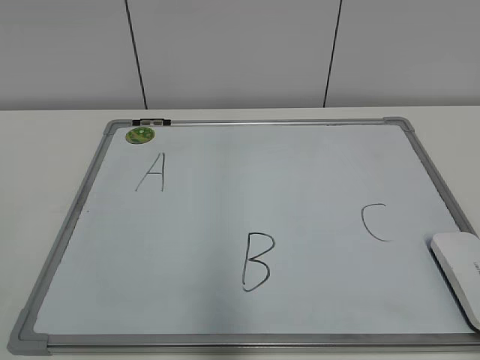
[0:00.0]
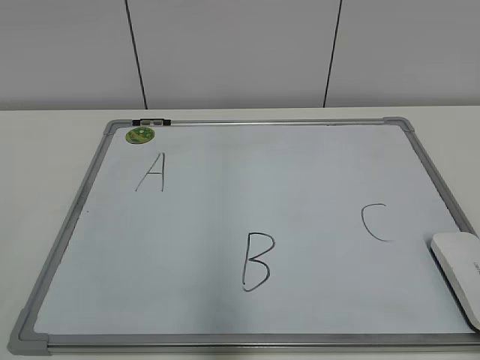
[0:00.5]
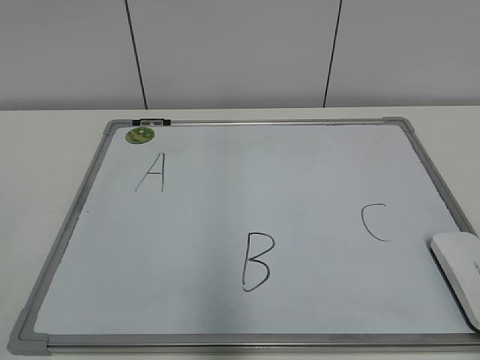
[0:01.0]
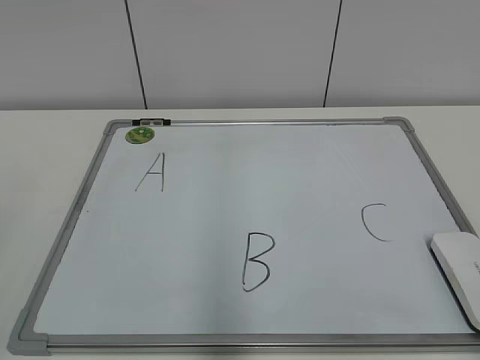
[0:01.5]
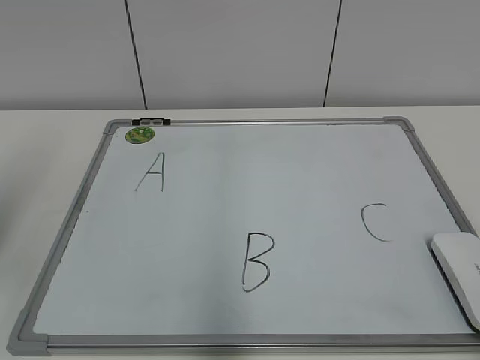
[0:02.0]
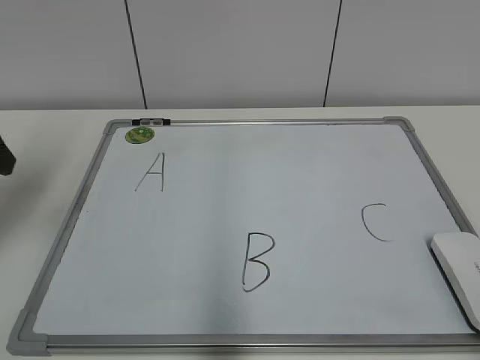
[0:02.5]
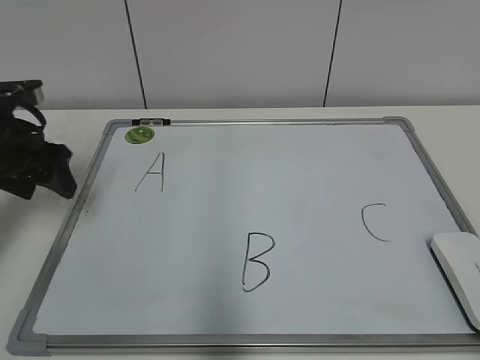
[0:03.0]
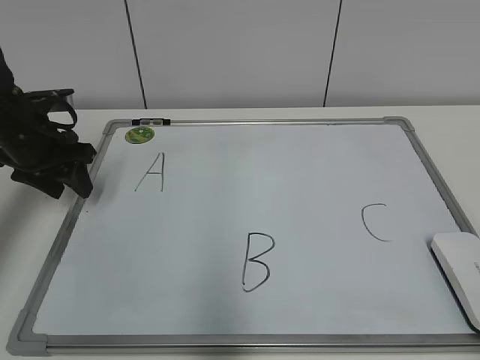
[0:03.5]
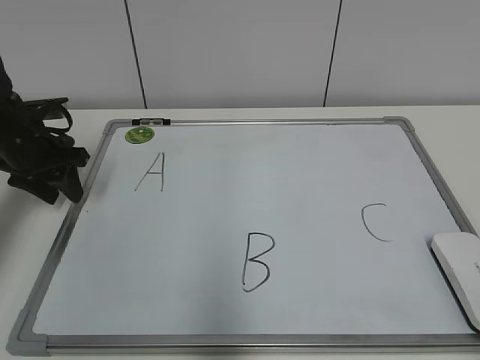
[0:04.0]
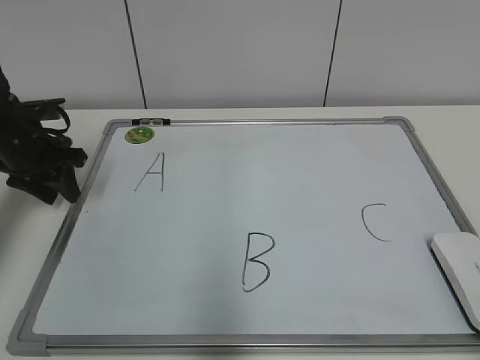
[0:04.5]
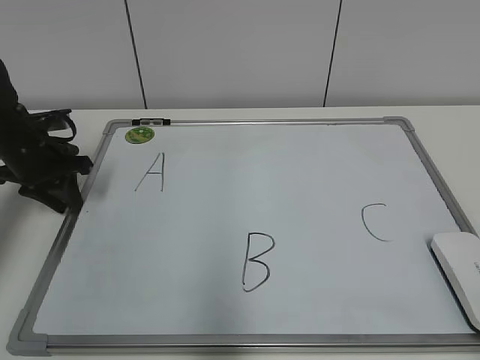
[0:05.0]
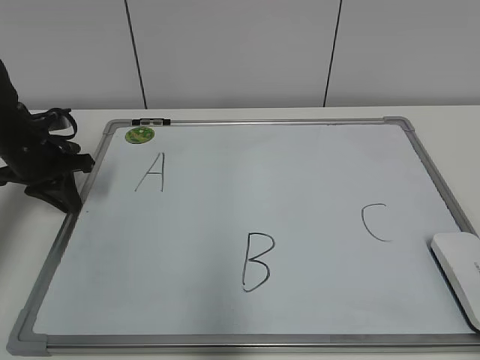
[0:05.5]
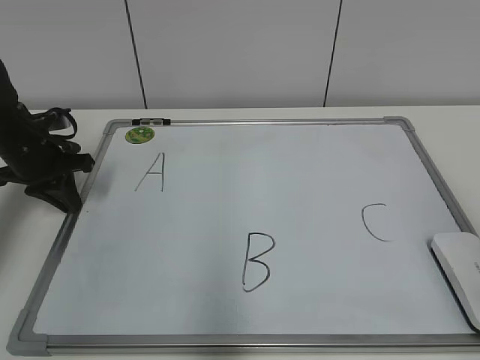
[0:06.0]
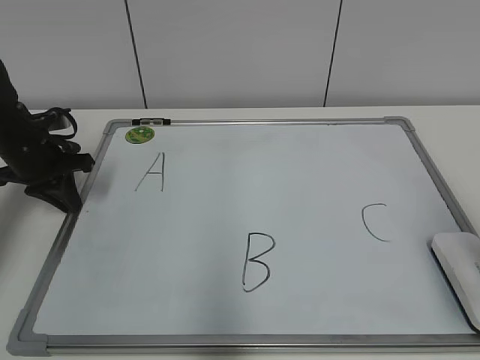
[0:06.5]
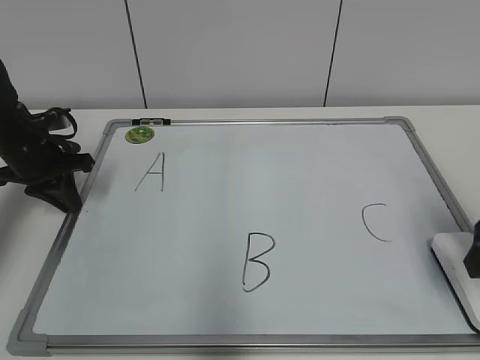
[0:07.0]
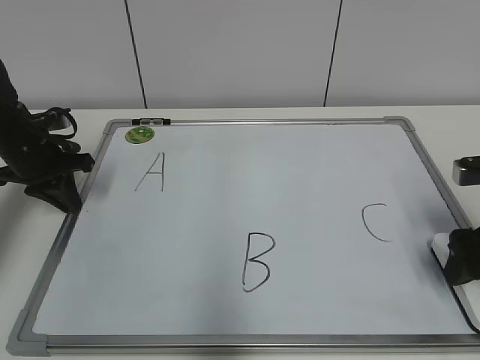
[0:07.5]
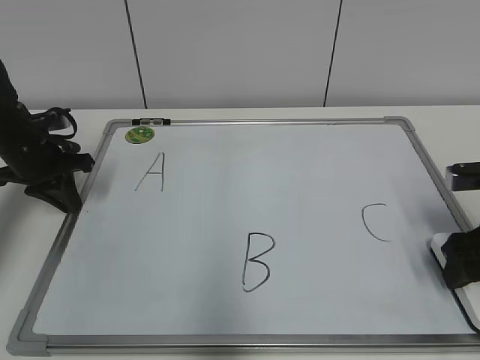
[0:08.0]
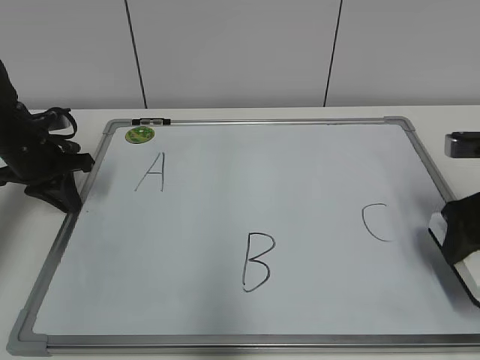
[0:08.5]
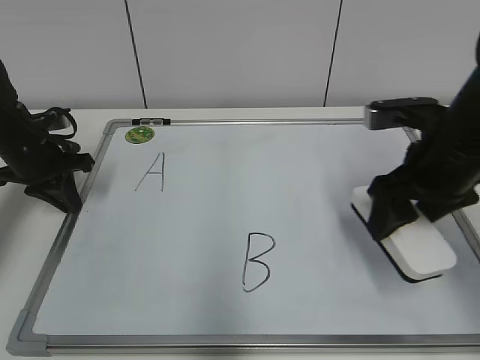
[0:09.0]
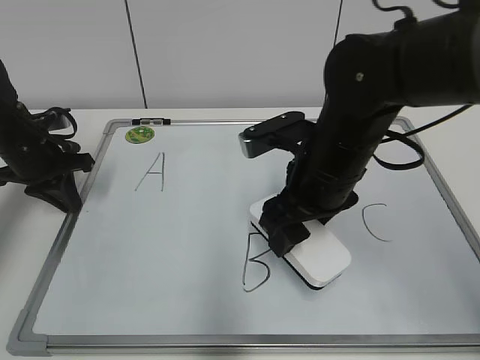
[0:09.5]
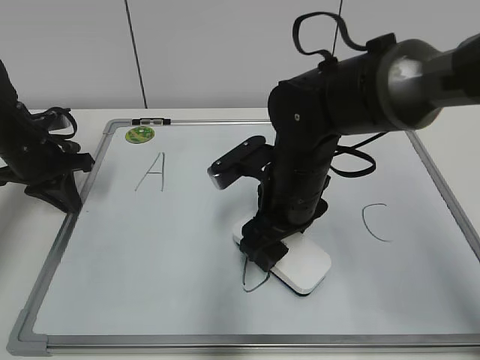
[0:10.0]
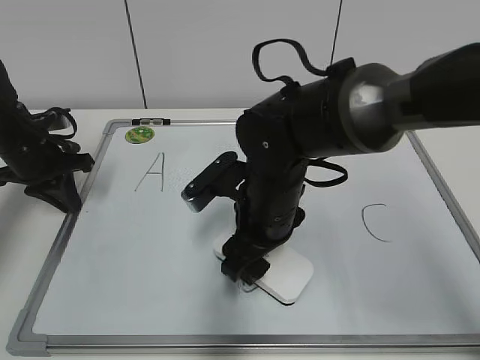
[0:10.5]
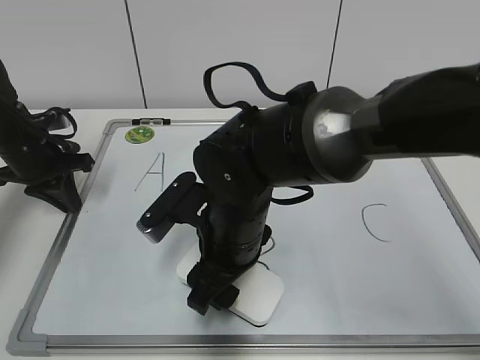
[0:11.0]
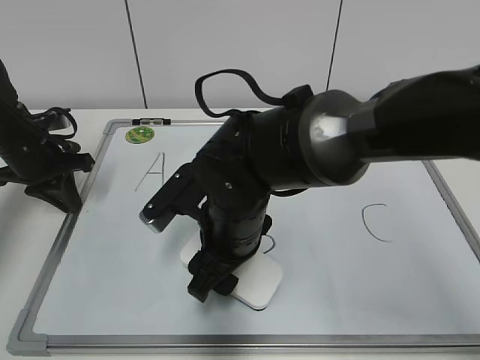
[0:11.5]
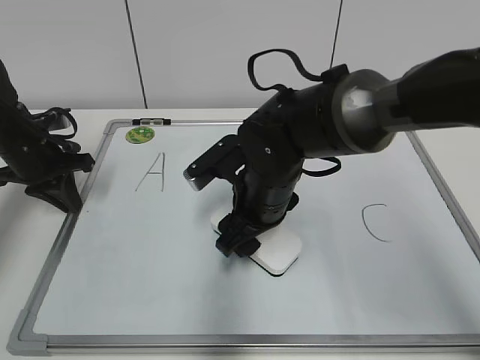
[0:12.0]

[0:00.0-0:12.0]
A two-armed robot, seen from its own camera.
Task of the whole recording: pick up the eraser on the blackboard and erase the letter "B".
Step, 0:00.0 to 0:05.0: Hold the drawing board steady with your left hand.
Step, 0:05.5 to 0:07.5: Grab the eraser with your right hand.
0:02.0 to 0:04.0: The left gripper moves forward and downward, roughly 30 cm, and closes.
0:04.0 to 0:06.0: The left gripper closes up.
0:06.0 to 0:08.0: The right gripper is displaced forward and downward by approximately 25 cm, and opens and closes again.
0:08.0 to 0:10.0: The right gripper travels to the left by roughly 25 cm.

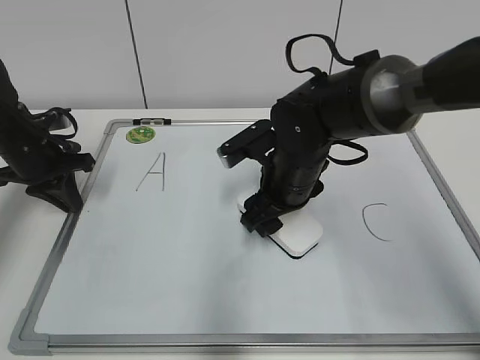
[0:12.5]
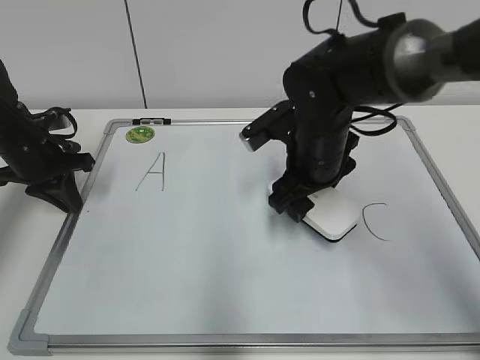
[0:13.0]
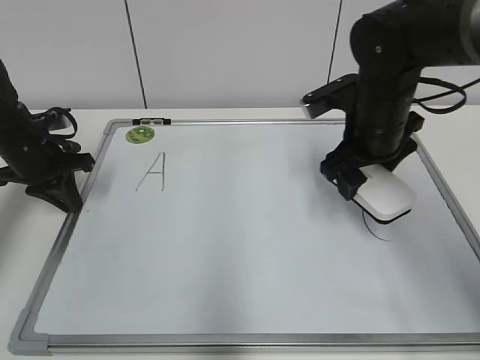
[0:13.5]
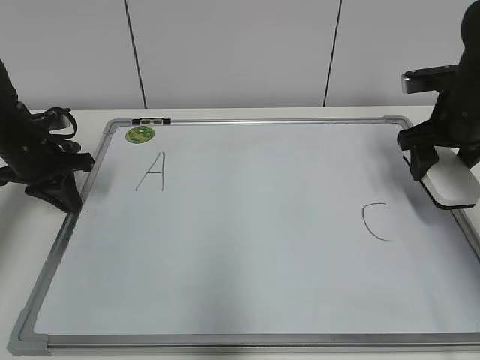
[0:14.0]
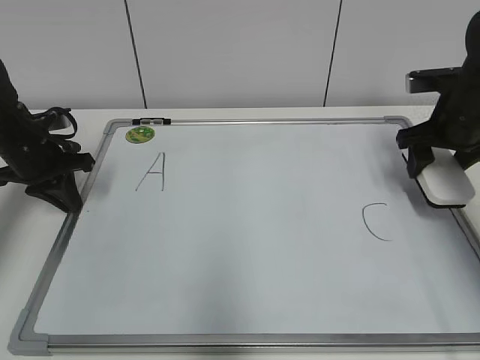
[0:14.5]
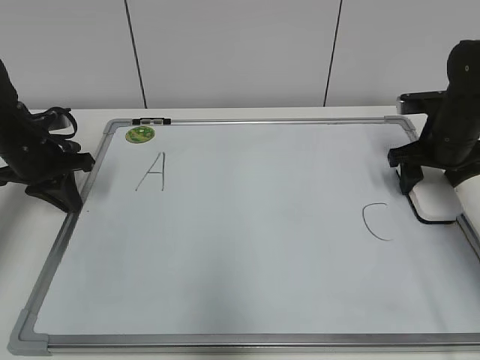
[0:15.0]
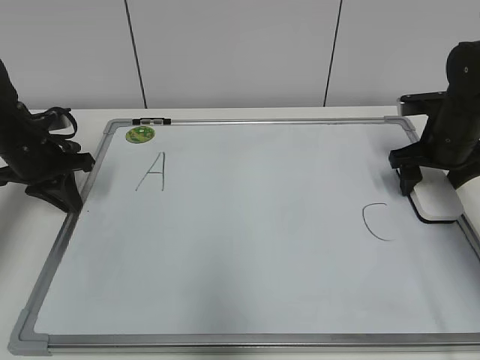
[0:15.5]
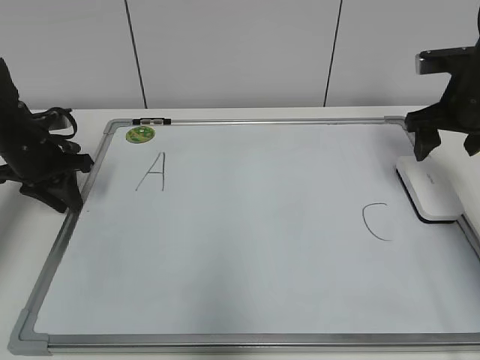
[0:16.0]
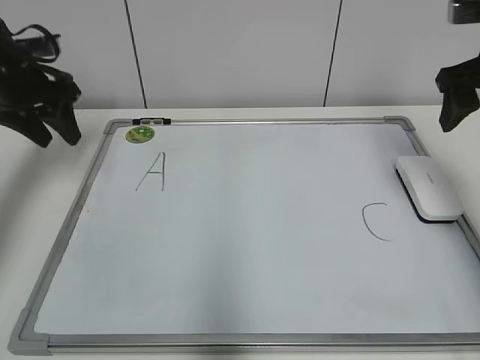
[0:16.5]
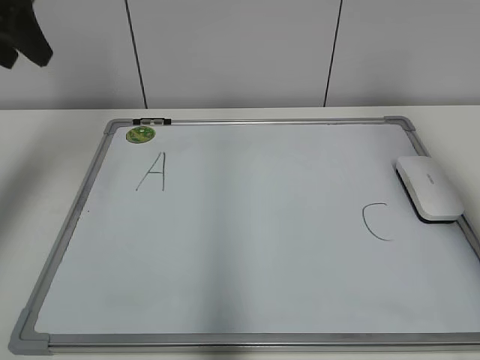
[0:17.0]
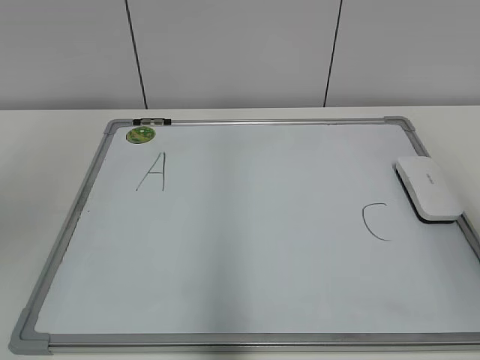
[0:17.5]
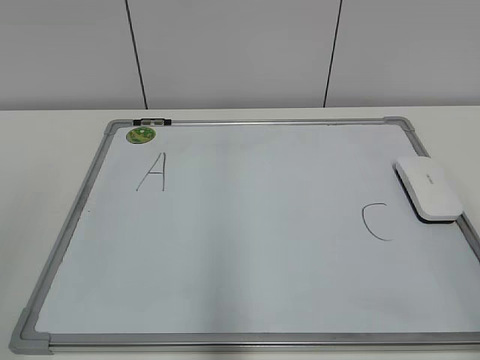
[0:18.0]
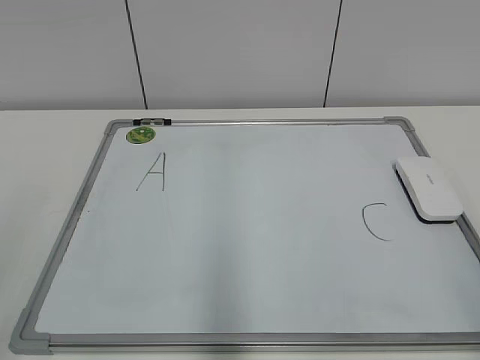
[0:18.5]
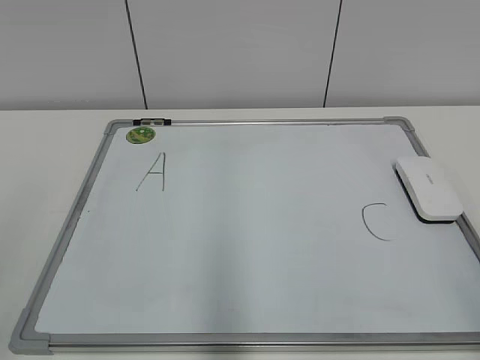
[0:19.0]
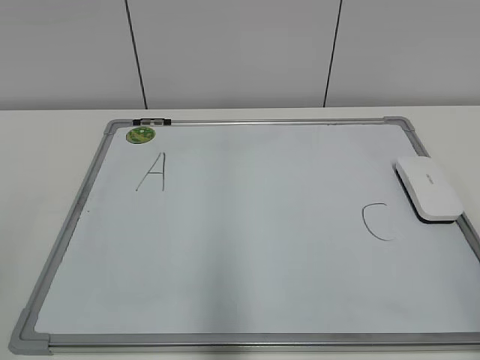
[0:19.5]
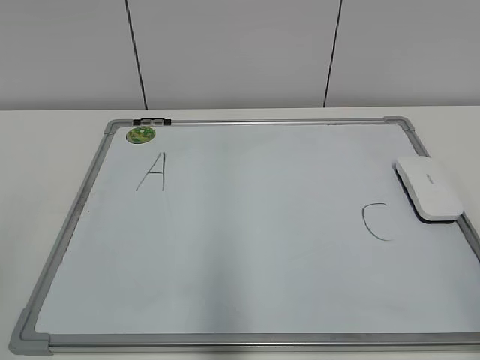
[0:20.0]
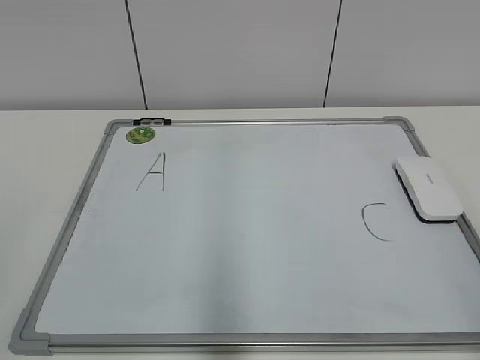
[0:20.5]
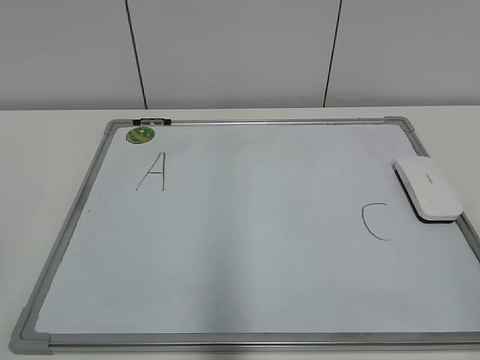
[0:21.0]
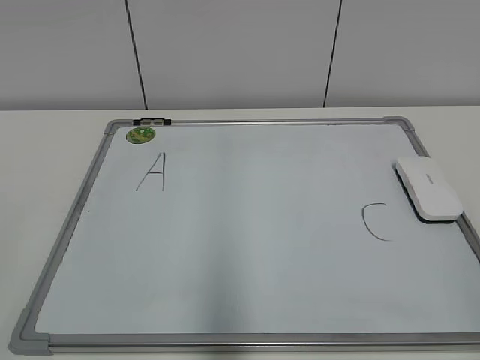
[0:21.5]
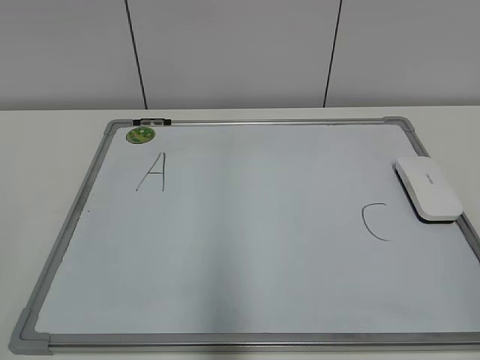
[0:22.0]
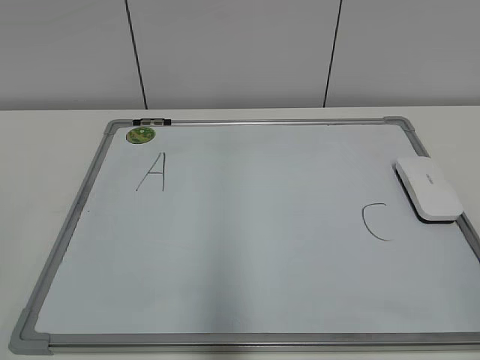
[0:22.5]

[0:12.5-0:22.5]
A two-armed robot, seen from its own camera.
Task of the whole recording: pick up the eraser on the blackboard and erase the letter "B".
Step, 0:13.0 to 0:15.5: Put down the eraser with your right hand.
0:12.5 to 0:14.5: The right gripper goes roughly 20 cm to the right.
0:14.5 to 0:16.5: The grippers both shift upward by approximately 10 cm. The right gripper opens up. The left gripper opens its fingers.
0:16.5 to 0:18.5: The grippers both shift backward by some 35 cm.

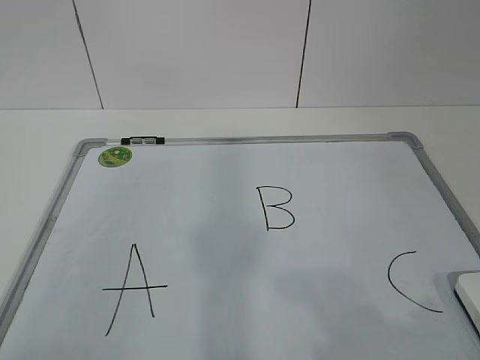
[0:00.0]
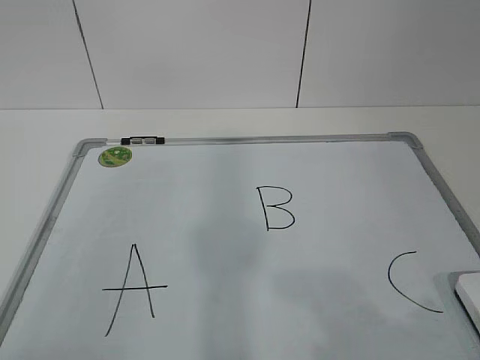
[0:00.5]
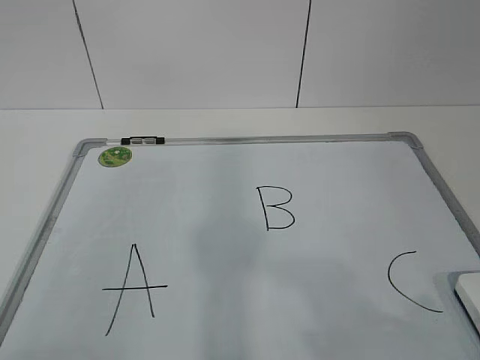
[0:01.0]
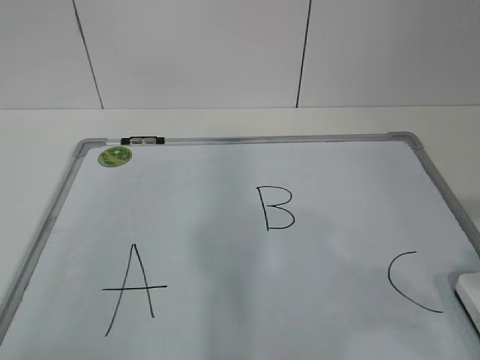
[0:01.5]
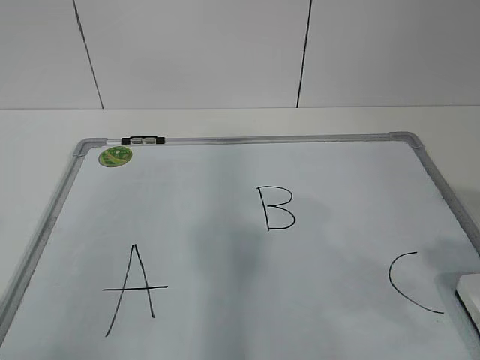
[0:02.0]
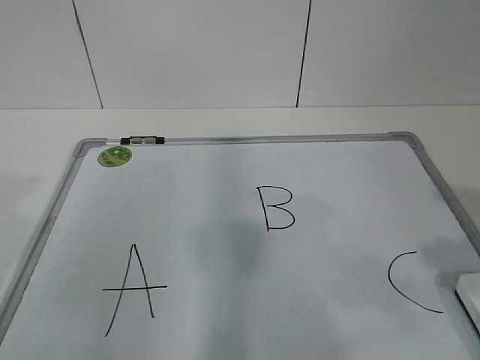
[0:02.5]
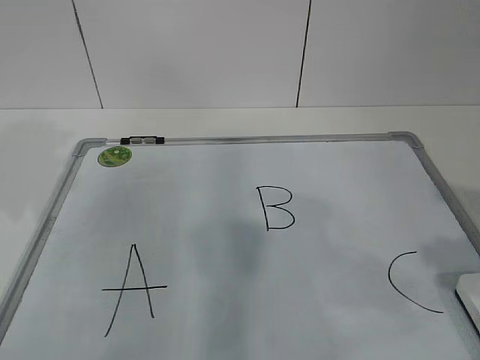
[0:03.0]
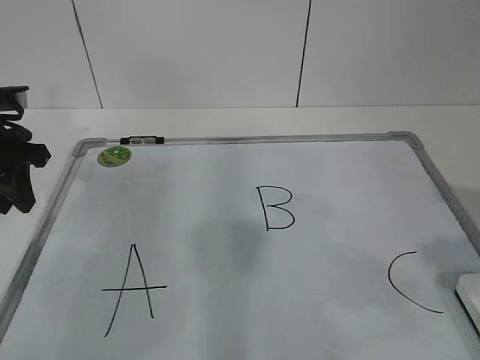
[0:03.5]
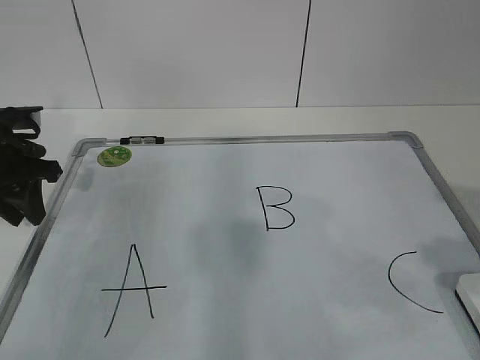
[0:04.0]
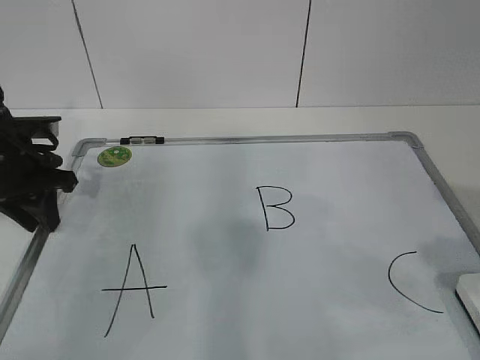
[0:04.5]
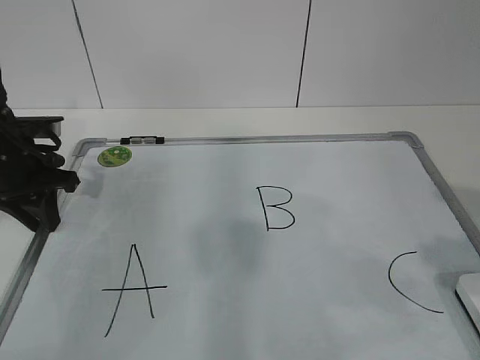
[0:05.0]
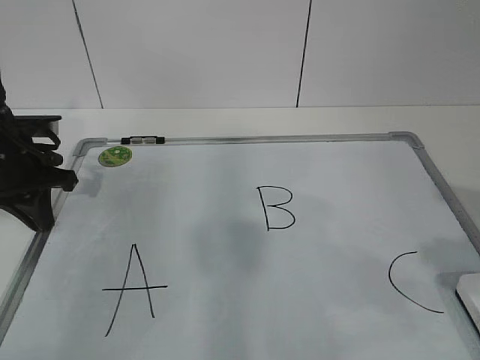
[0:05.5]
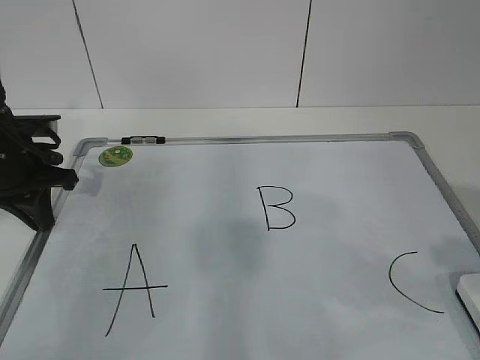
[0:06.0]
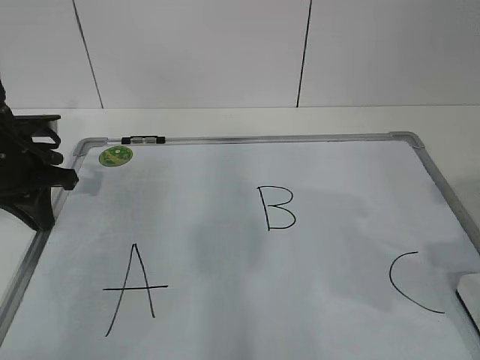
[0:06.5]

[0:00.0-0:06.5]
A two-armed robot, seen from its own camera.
Task of the whole recording: pick up the eraser on the blackboard and erase the letter "B".
Step, 0:00.0 to 0:04.0: Hold the drawing board steady with your left hand.
0:02.0 to 0:04.5: The left gripper moves forward, approximately 35 cm.
0:04.5 to 0:06.5: The left gripper closes its fingers.
